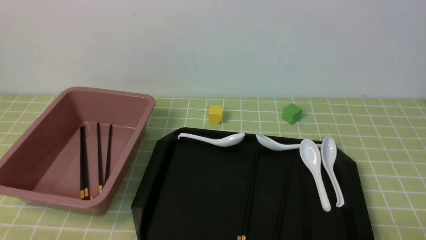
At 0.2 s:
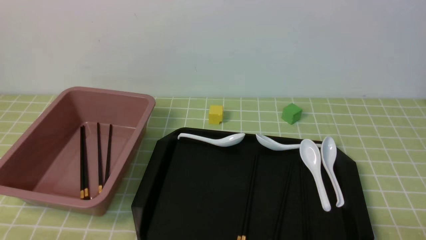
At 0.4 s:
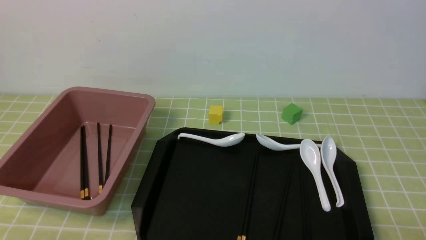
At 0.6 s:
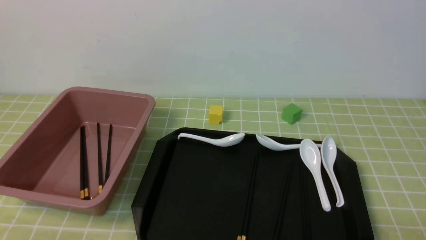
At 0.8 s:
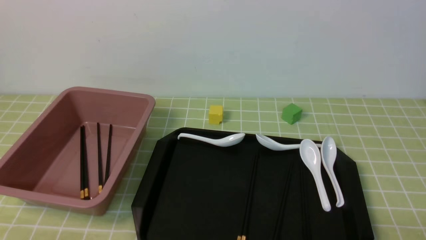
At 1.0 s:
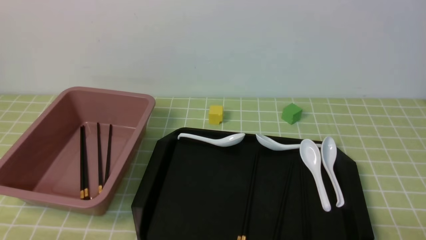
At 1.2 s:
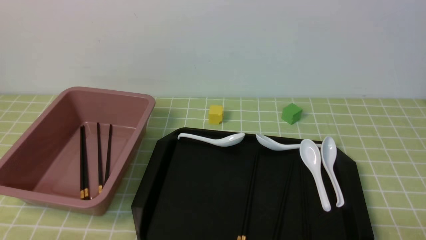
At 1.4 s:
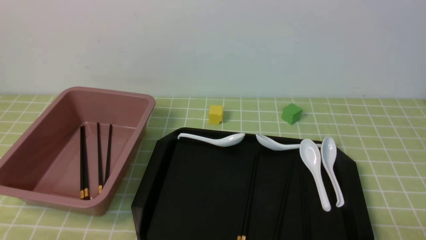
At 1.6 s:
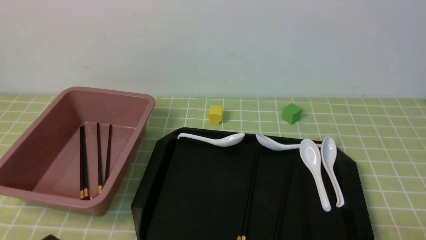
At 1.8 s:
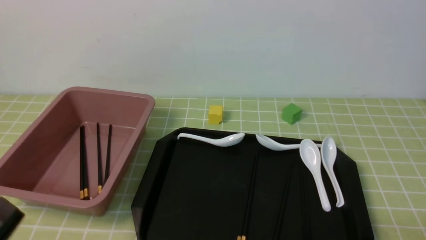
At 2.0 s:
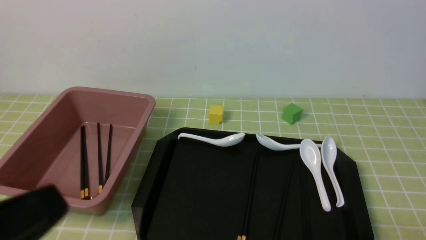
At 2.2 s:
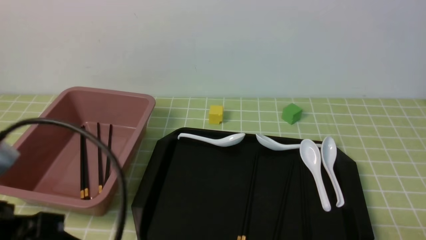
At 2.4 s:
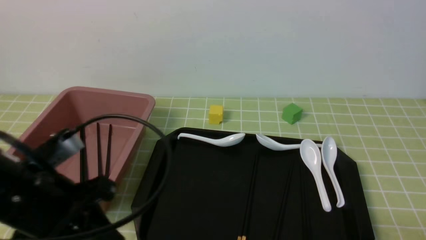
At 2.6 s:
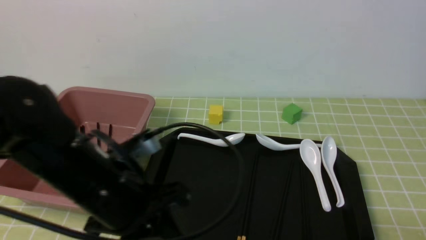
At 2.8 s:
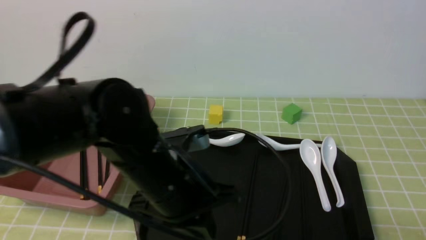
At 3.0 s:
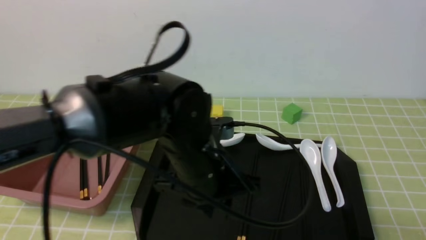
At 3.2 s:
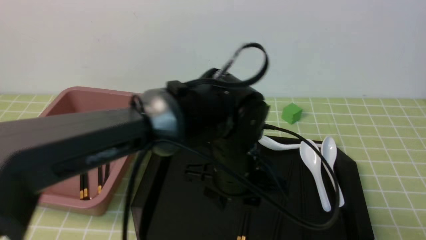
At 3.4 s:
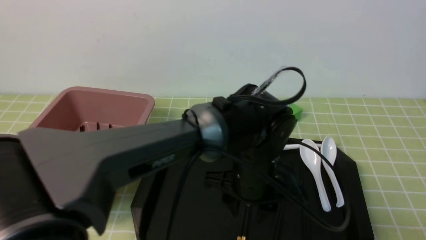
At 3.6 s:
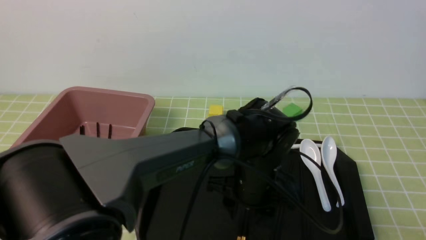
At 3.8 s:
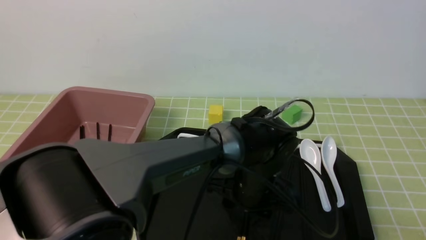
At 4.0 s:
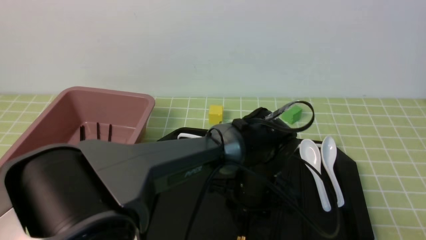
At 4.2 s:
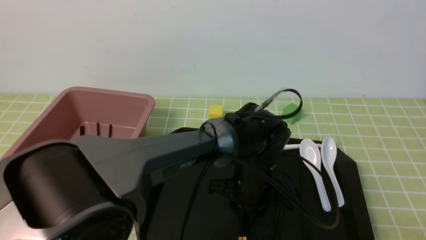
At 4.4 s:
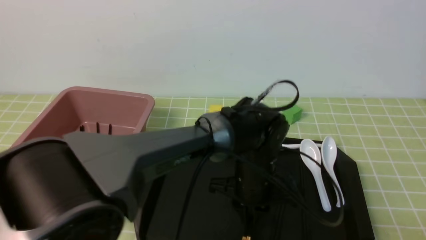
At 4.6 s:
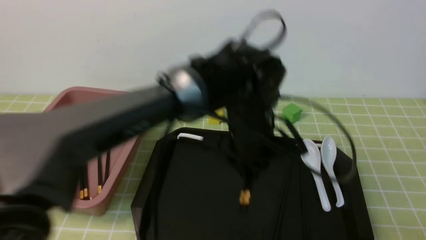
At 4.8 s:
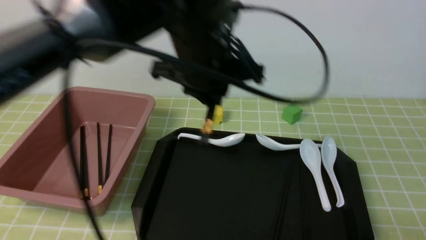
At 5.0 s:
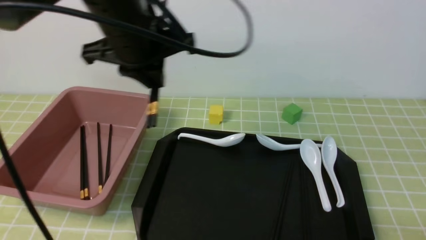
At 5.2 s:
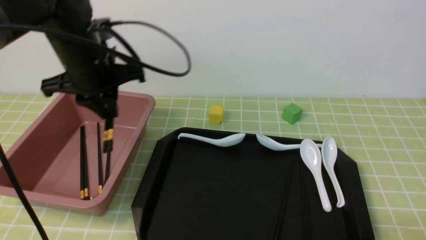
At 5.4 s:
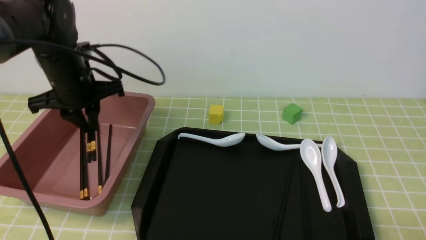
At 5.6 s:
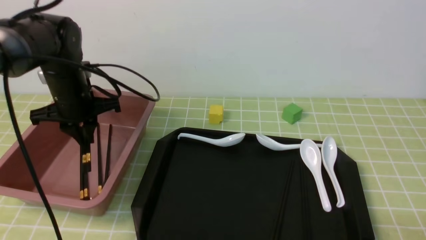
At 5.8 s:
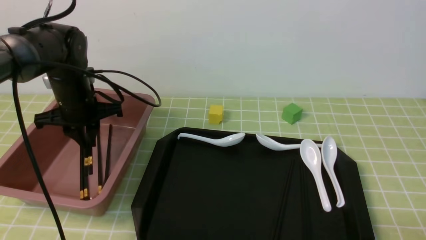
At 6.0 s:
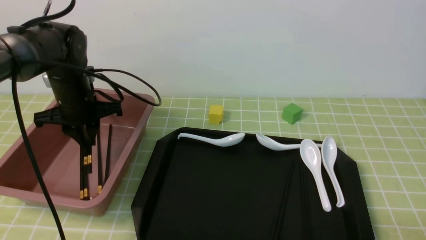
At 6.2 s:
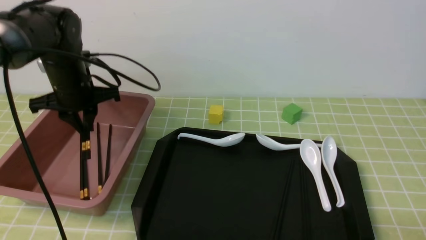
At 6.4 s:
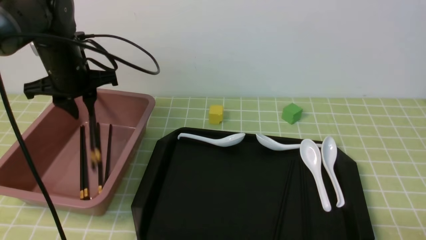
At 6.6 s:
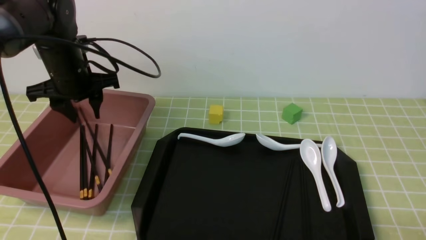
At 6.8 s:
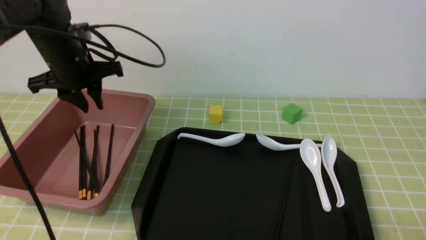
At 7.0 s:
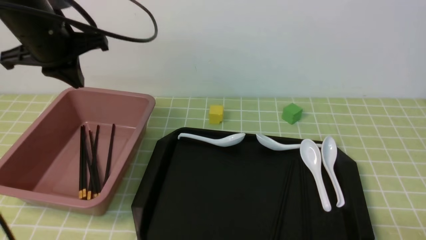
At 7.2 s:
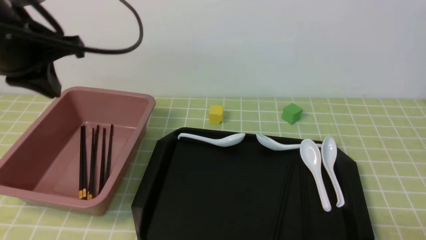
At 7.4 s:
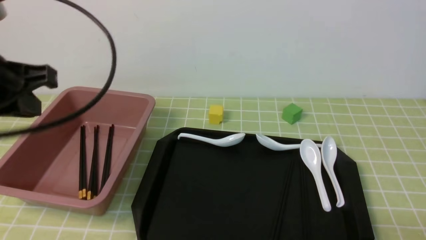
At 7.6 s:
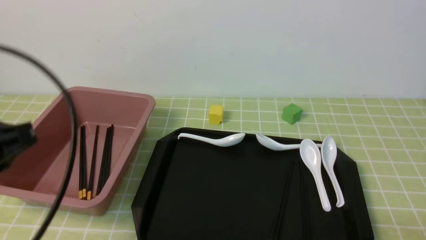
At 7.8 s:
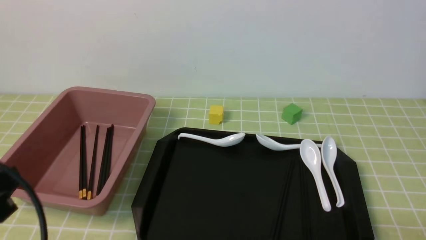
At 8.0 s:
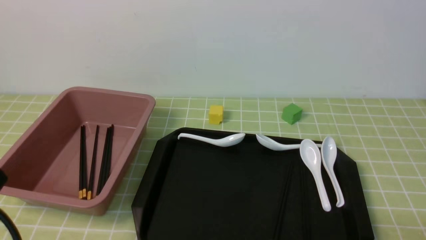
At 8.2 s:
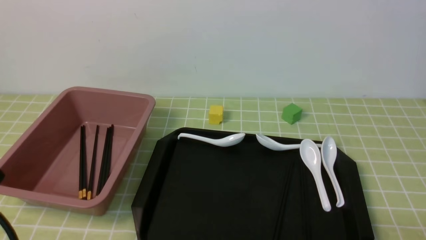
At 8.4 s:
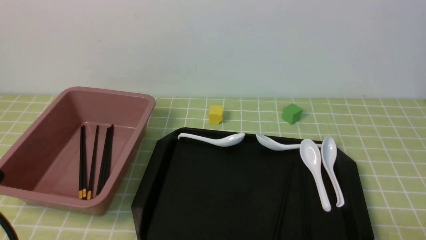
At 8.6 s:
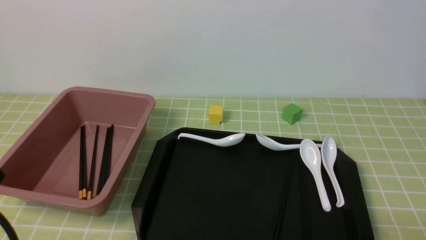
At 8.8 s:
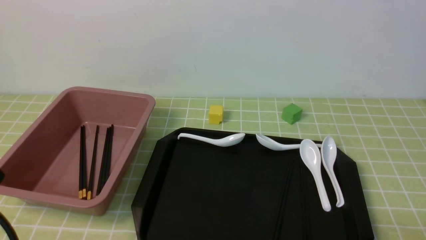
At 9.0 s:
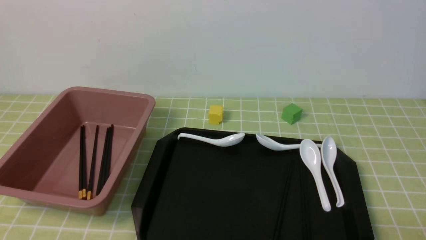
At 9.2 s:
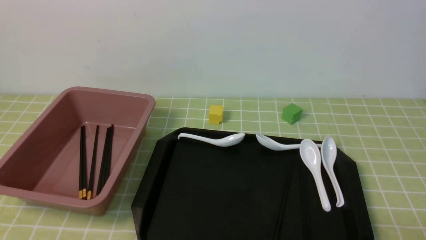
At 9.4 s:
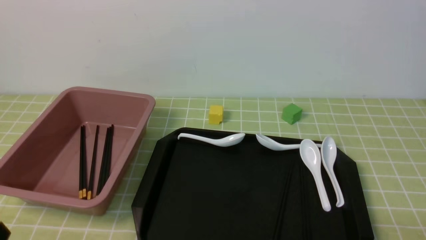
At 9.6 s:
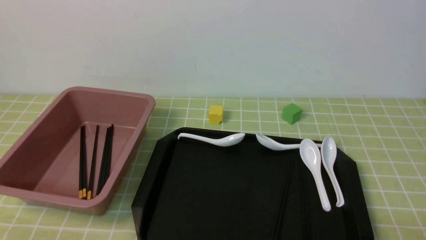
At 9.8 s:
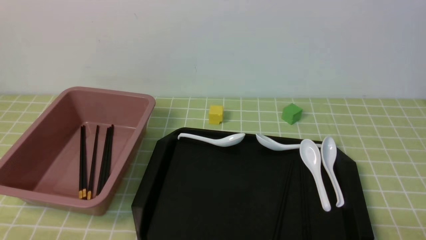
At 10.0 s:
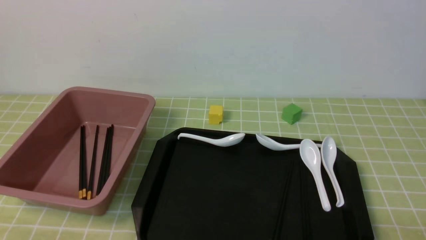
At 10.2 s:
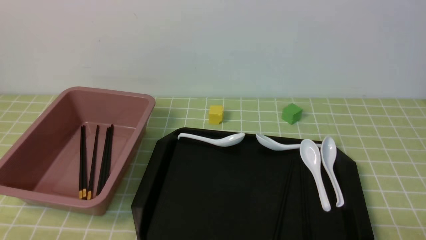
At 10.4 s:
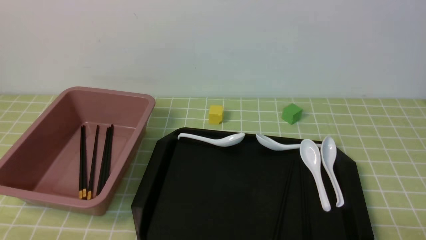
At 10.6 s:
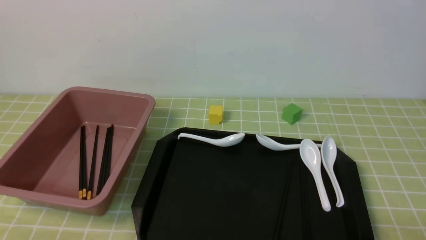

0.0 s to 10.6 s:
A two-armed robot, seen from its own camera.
Step, 0.0 to 4.8 s: use the left arm to grab a pair of chopsticks.
Step, 5.0 to 6.6 s: use the left arm to put the chopsticks into the lunch box.
1.6 to 3.0 s: The left gripper moves forward and to the right, approximately 30 cm.
3.0 to 4.6 s: The left gripper travels to the right and forward by some 10 cm, and opens, then closes once more.
4.6 to 6.0 s: The left gripper goes some 30 cm to the left.
6.0 to 7.6 s: The left gripper travels backward and upward by roughly 25 cm, and closes up.
7.6 to 9.0 s: The left gripper goes some 15 cm backward and downward.
